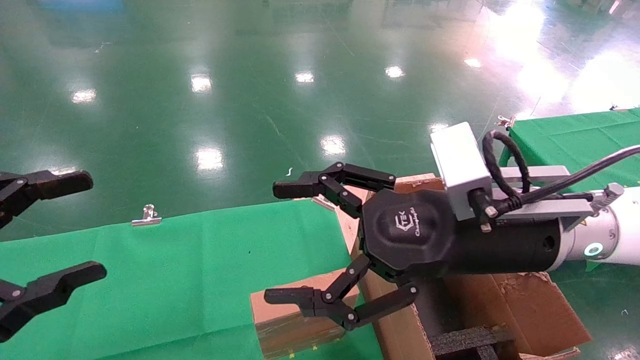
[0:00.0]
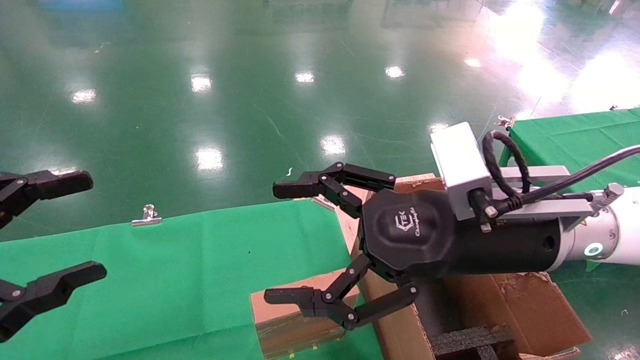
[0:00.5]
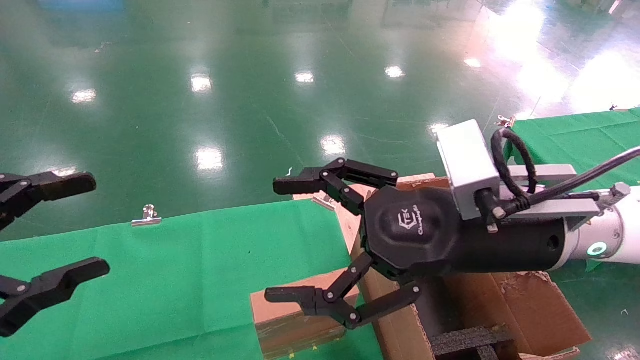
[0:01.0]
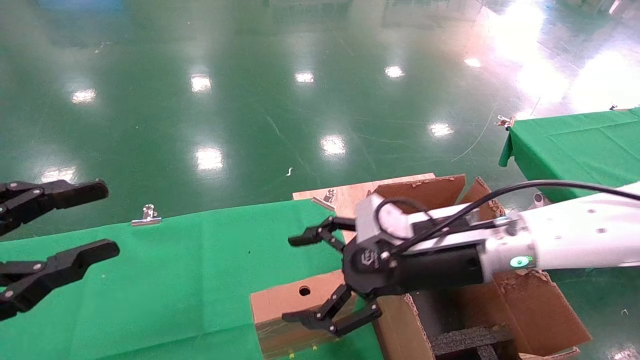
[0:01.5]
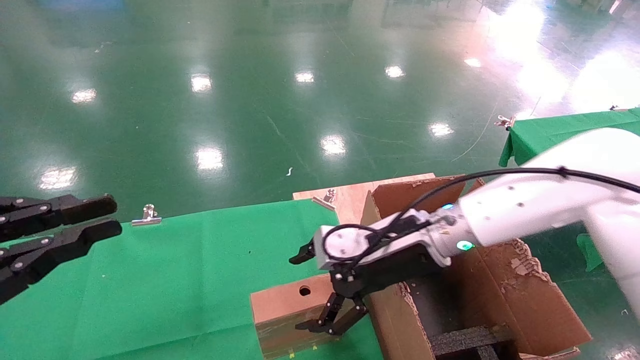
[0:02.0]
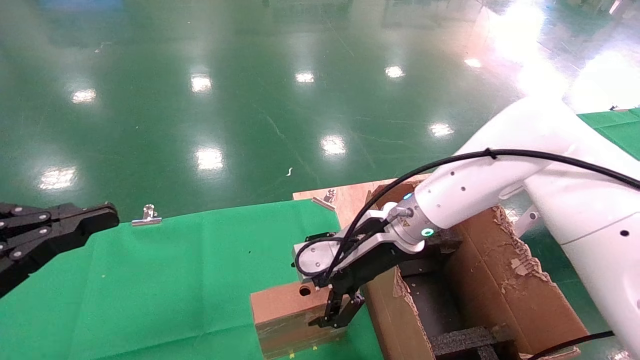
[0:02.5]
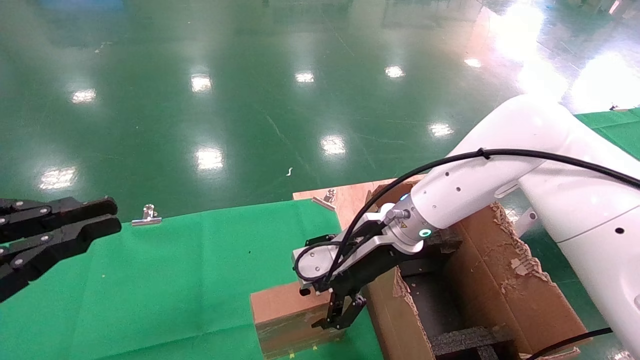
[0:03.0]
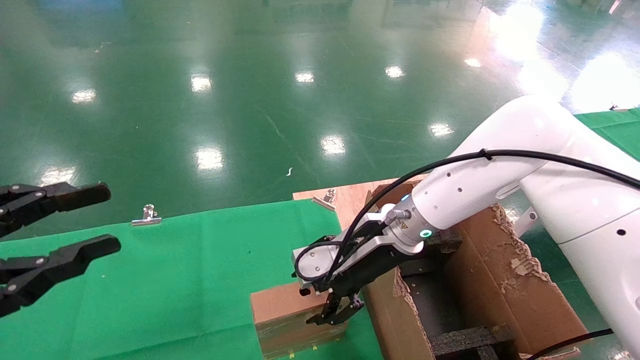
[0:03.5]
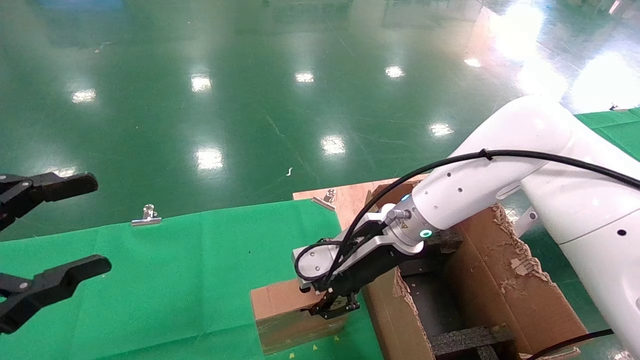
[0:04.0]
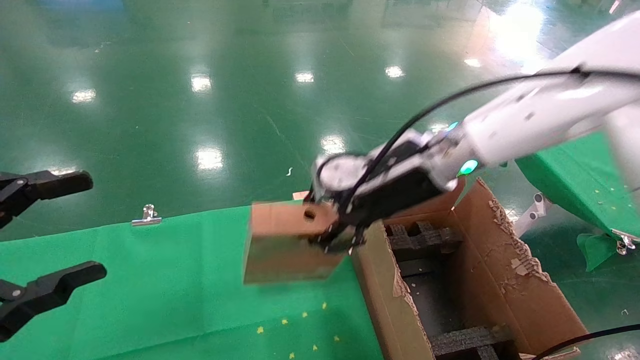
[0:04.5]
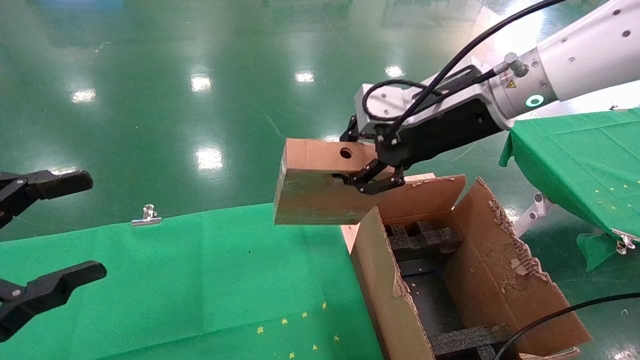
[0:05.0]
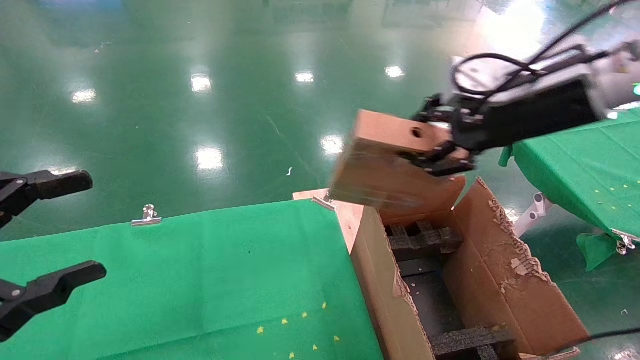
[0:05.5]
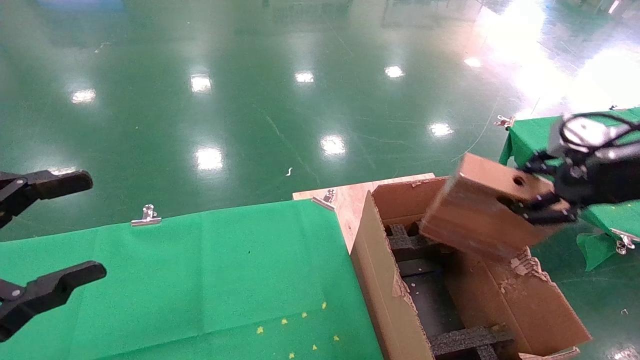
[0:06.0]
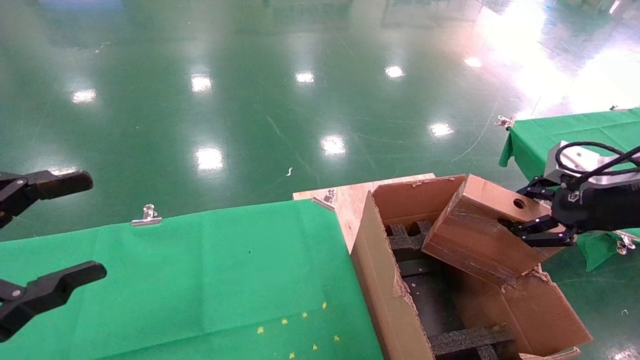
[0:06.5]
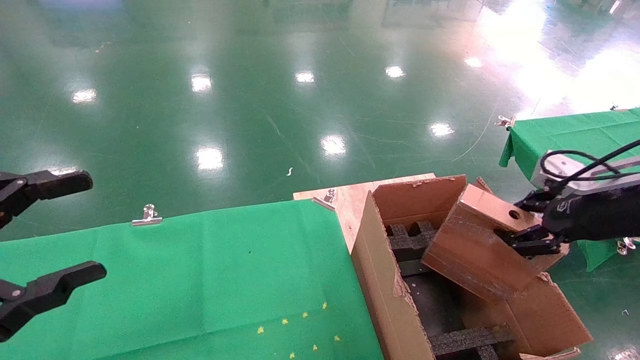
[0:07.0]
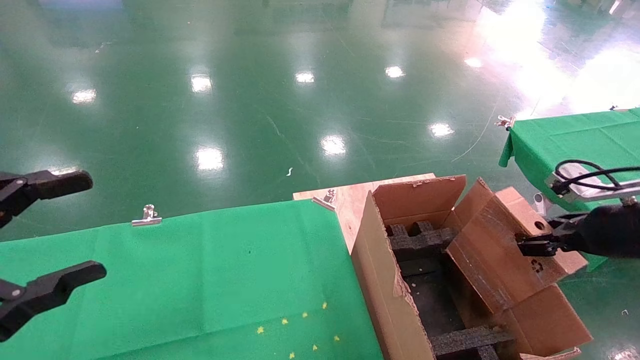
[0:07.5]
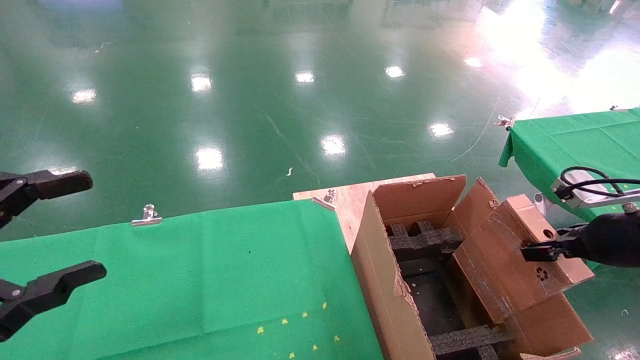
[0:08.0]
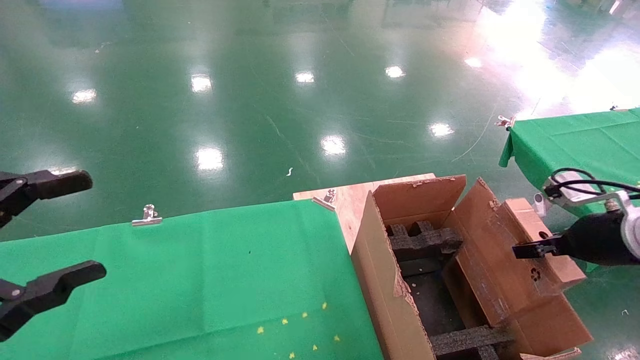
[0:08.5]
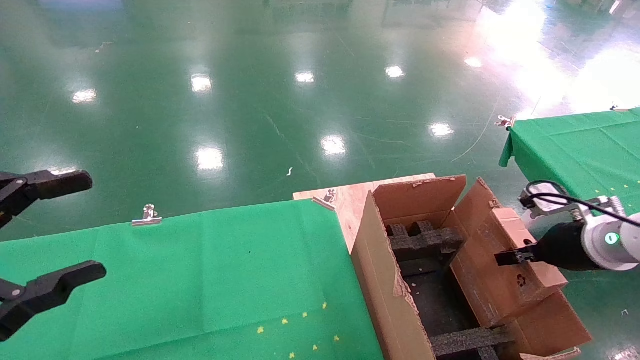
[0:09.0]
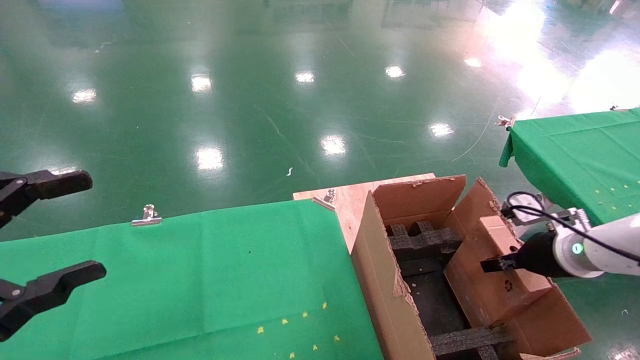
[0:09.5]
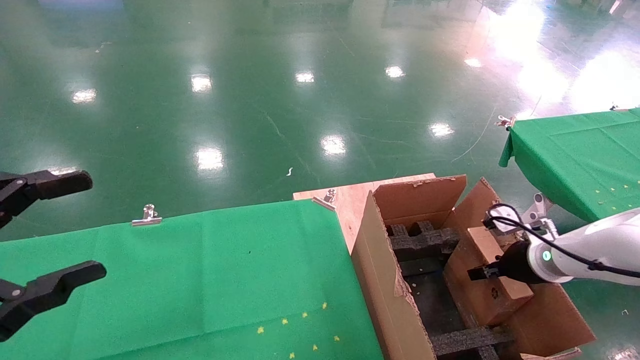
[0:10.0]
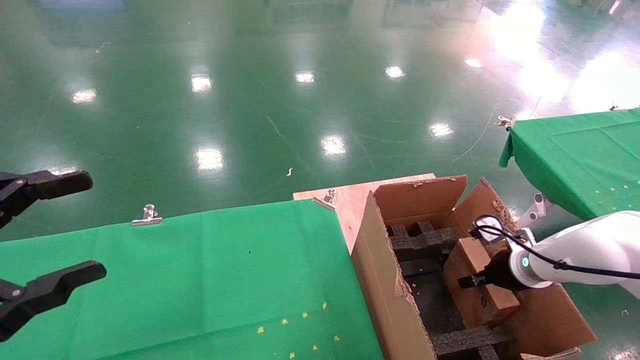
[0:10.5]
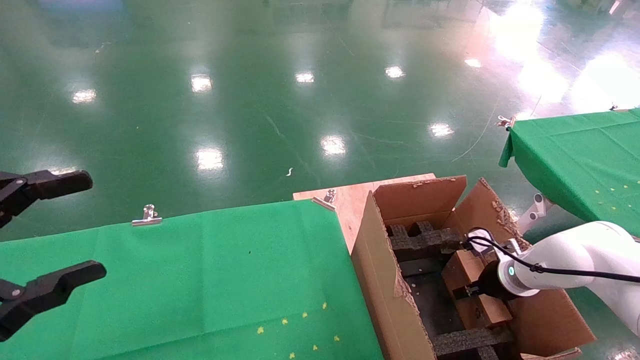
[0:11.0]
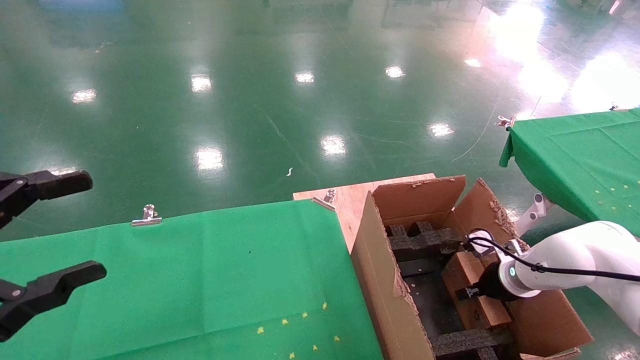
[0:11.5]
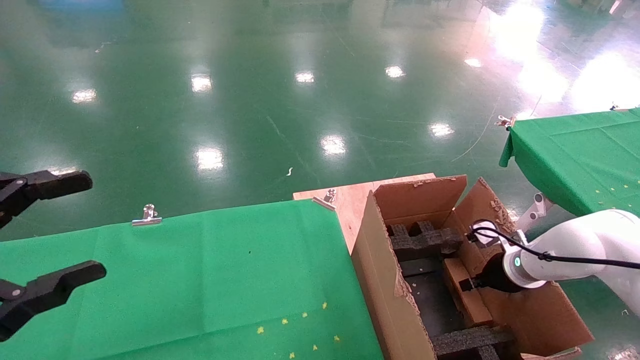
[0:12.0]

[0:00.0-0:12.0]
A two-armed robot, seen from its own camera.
Task of the whole recording: using a robotic arm to pick up a cardboard box and palace it the carton.
Step, 0:01.5 to 0:03.5: Pick up the mouse and the power cord paper box.
0:00.0 to 0:02.0: The right gripper shifts approximately 15 cm forward and downward; the left gripper closes its fingers.
0:02.0 to 0:04.0: The right gripper closes. The left gripper opens.
0:04.0 to 0:06.0: The right gripper goes some 30 cm to the right and backward.
0:06.0 to 0:08.0: The right gripper travels downward by about 10 cm.
0:08.0 to 0:10.0: The right gripper goes about 15 cm forward and downward.
0:10.0 to 0:12.0: The right gripper changes place by some 5 cm, and opens.

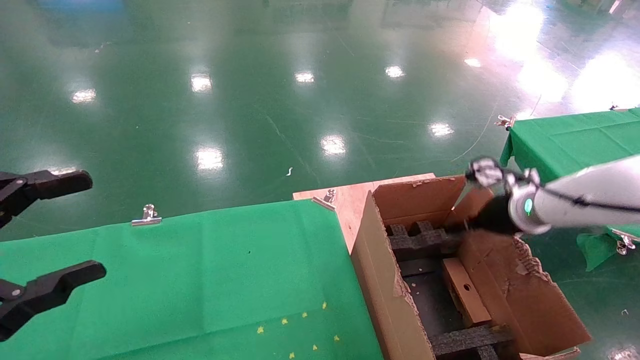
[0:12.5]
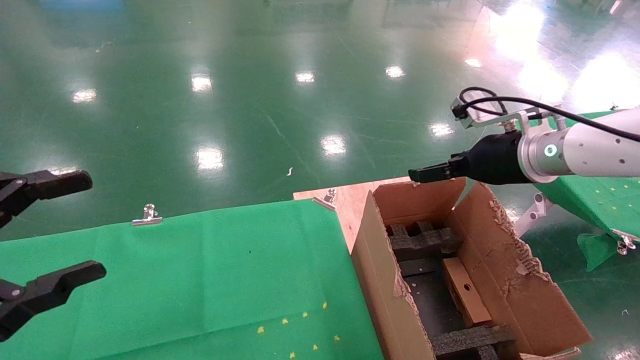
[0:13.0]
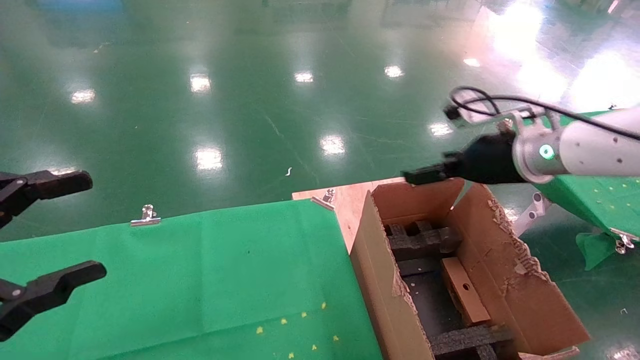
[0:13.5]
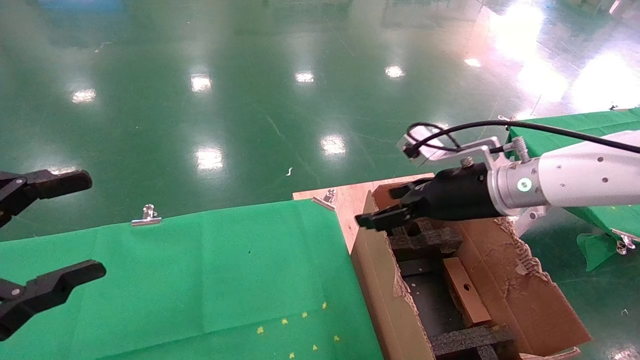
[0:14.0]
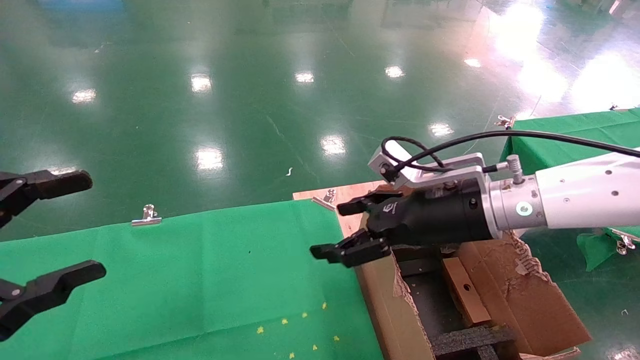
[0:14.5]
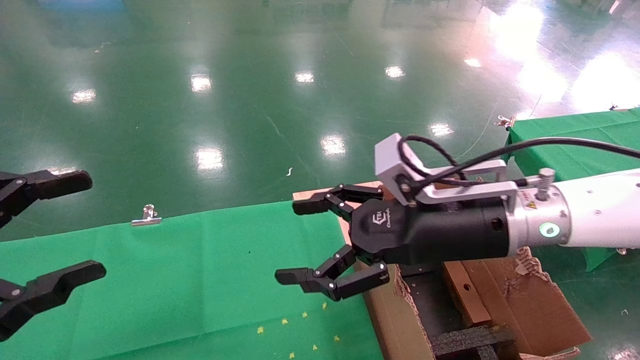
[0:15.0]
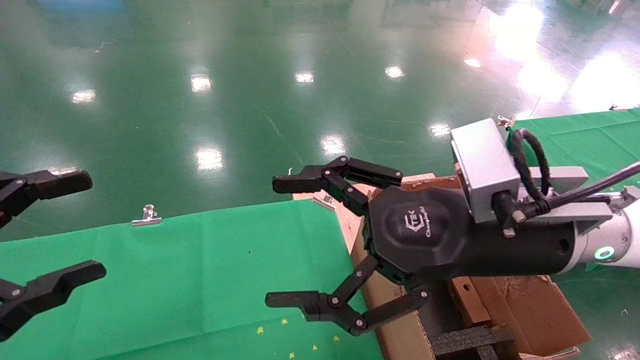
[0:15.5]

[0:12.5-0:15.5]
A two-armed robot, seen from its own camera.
Task of the whole recording: using a robotic arm to pick up a cardboard box and palace it the carton.
0:12.5 to 0:14.0: The right gripper shifts about 15 cm to the left, upward and backward.
0:14.0 to 0:15.5: The right gripper goes about 15 cm backward and to the left.
